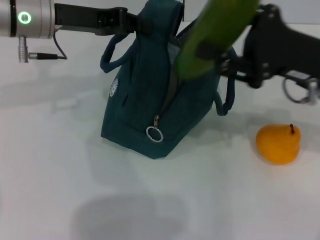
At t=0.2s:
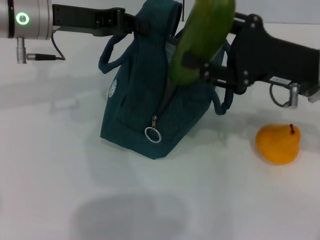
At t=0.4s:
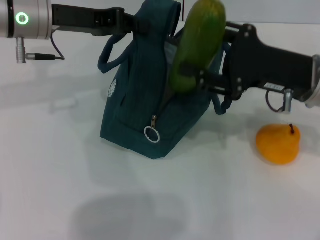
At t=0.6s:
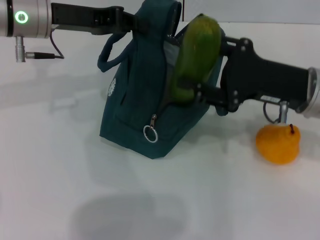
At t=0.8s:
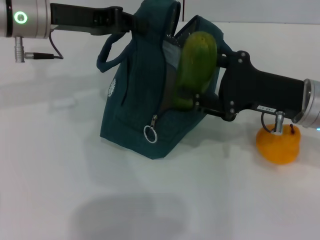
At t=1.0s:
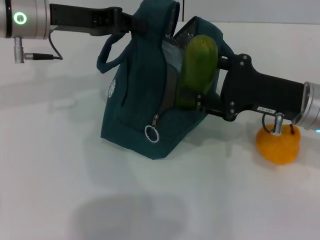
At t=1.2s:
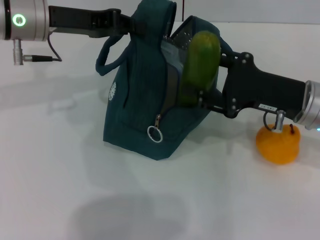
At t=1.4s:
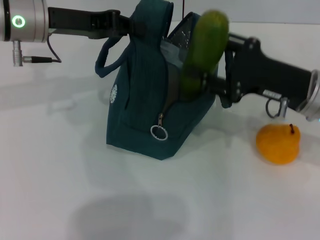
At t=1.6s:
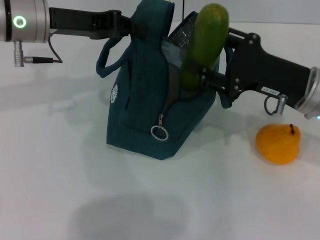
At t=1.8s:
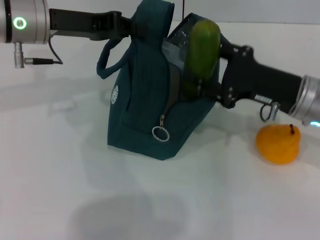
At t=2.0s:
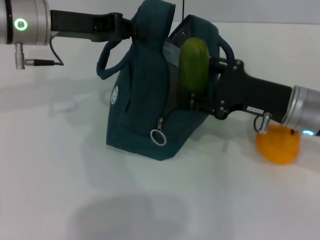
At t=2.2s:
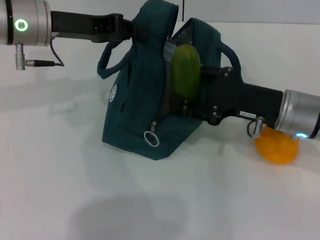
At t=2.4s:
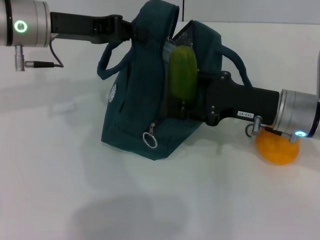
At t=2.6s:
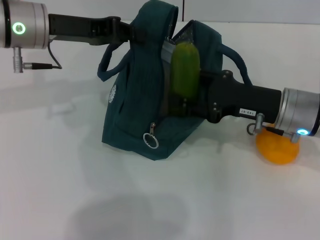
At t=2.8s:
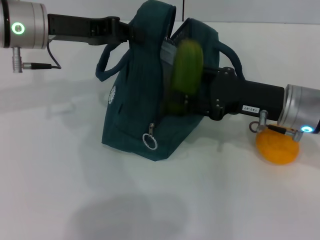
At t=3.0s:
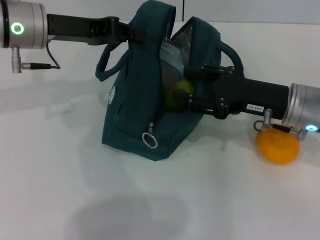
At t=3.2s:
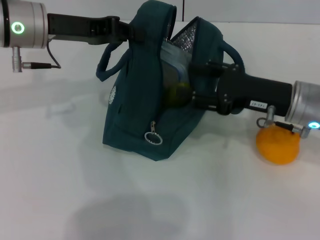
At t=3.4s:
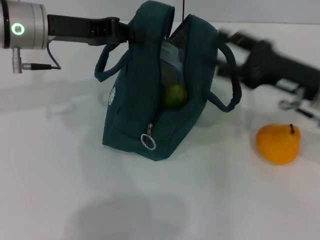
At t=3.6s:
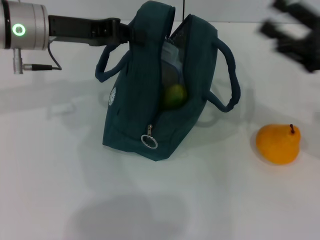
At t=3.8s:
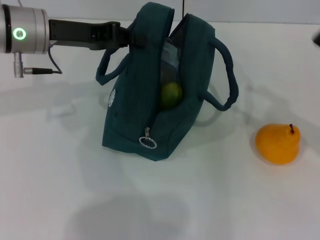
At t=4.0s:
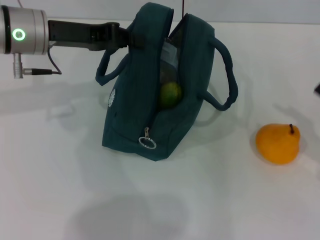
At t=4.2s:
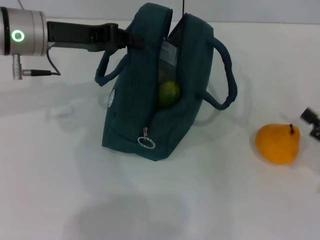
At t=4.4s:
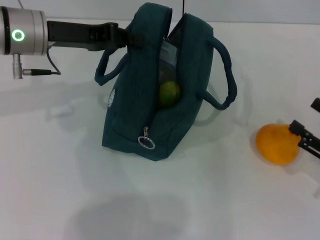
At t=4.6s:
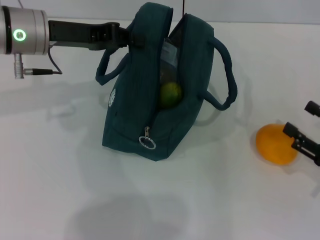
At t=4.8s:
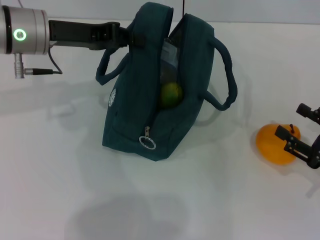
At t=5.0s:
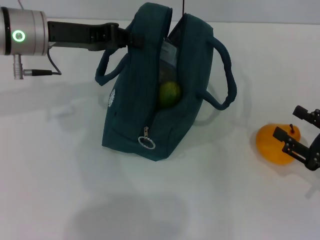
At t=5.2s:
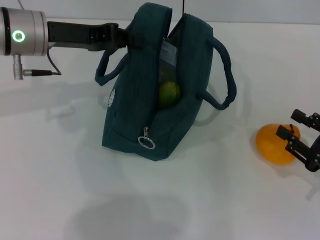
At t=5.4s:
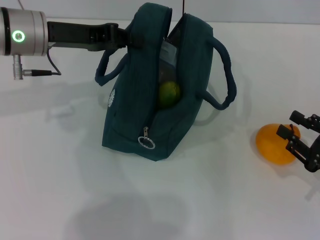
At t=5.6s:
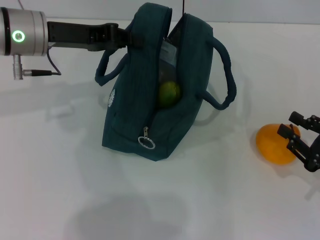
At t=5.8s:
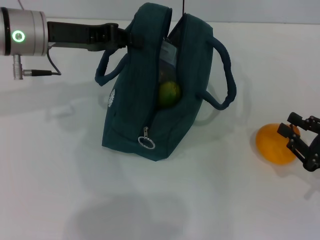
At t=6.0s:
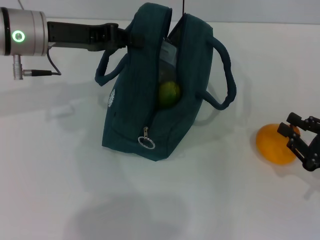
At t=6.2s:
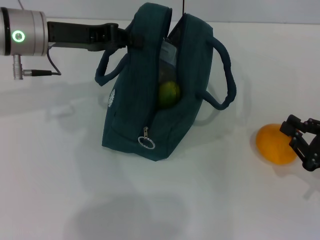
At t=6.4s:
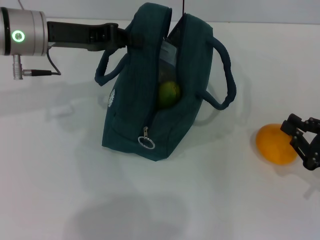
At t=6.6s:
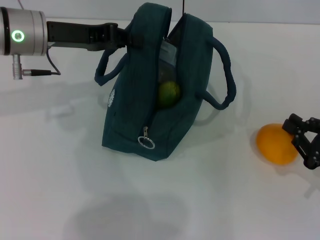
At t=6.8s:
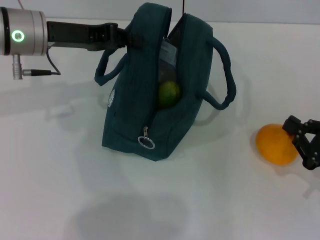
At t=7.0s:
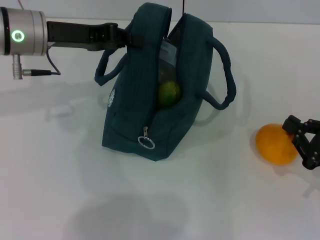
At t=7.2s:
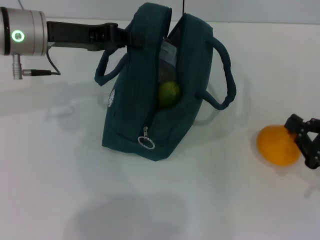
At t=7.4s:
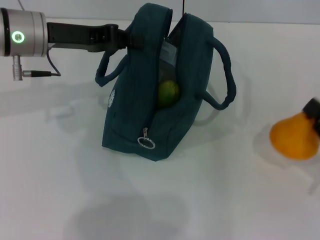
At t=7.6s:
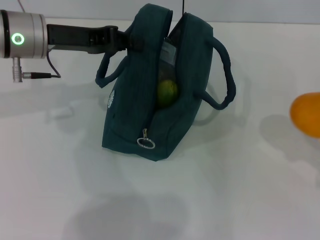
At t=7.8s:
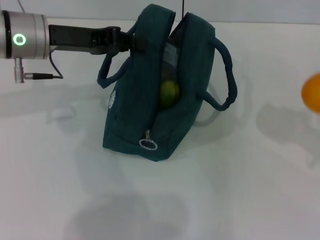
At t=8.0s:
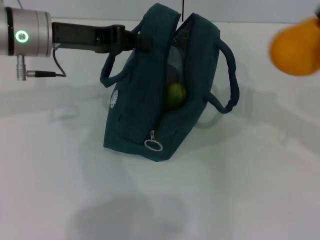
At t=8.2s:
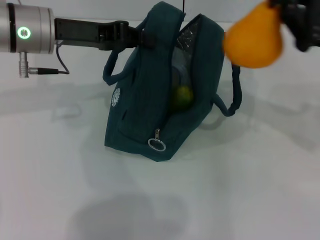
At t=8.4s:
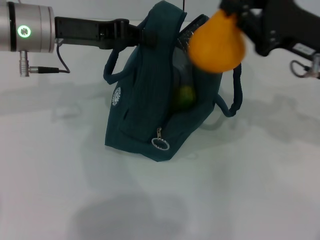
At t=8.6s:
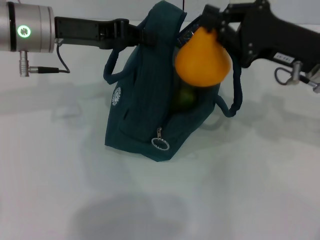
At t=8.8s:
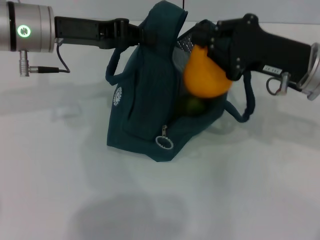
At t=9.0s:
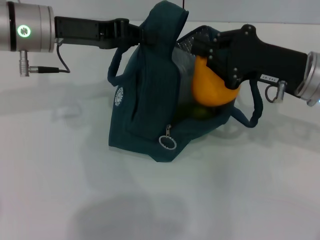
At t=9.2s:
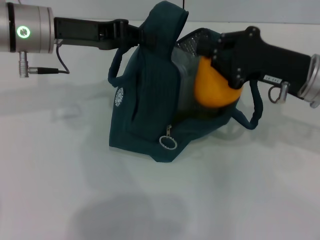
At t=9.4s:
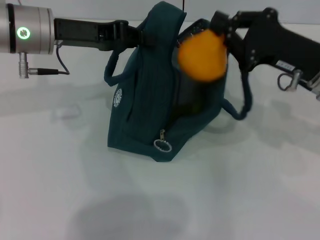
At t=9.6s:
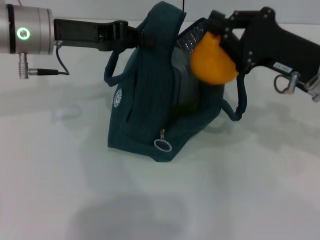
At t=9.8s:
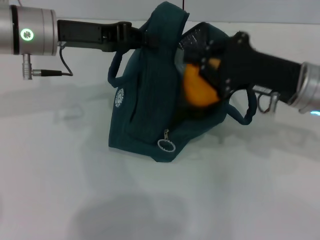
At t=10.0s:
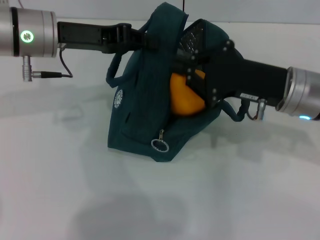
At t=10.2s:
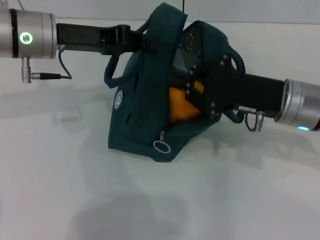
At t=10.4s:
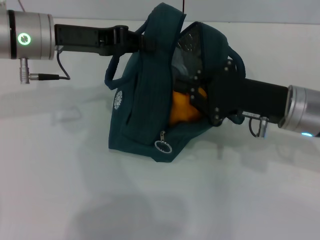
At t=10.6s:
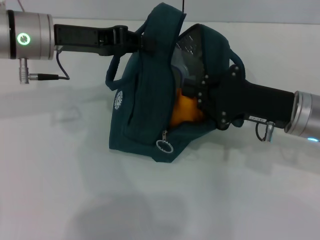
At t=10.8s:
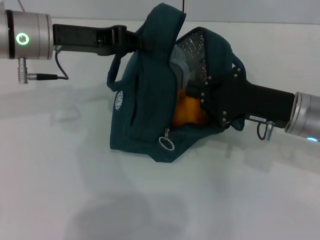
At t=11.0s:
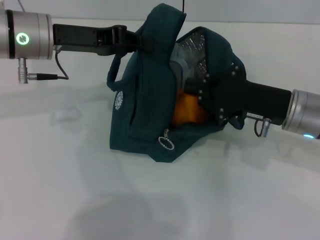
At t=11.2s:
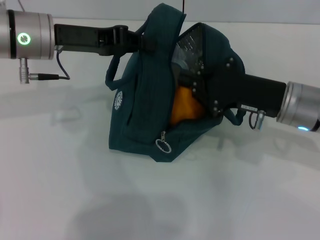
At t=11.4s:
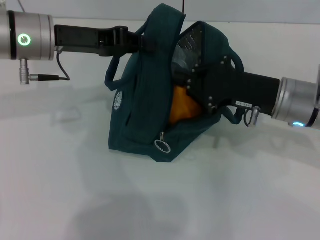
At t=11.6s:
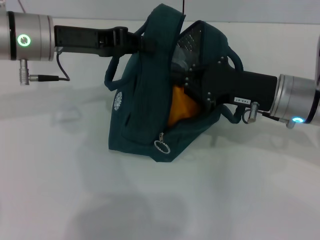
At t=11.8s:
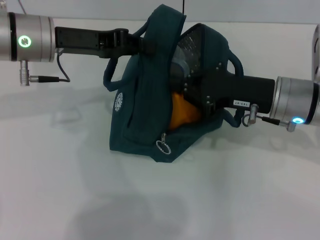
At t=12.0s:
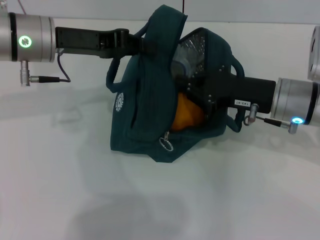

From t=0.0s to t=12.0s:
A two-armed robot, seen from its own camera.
Step, from t=0.0s to t=3.6s: Put the cucumber into the lunch bag with your right hand.
Step, from t=3.8s to t=7.0s: Grab the pear with your right hand.
From t=0.0s to t=1.6s: The grippers stay close to where they were, moving slightly.
From t=3.0s to t=4.4s: The right gripper goes about 20 cm to the right, backward and downward.
From t=4.4s to t=6.0s: The right gripper closes.
From t=6.0s to t=7.6s: The grippers move only a little.
From t=7.6s to t=9.0s: The right gripper heads to the left, forward and upward, covering approximately 20 cm.
From t=9.0s to t=10.4s: There are only small adjustments of the grippers.

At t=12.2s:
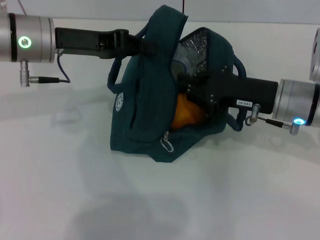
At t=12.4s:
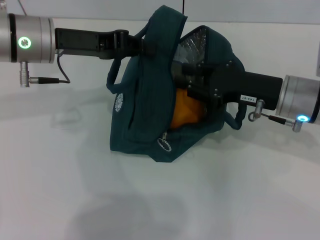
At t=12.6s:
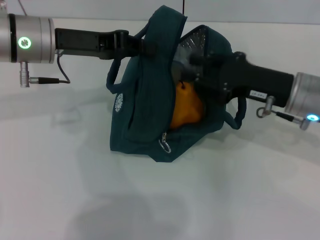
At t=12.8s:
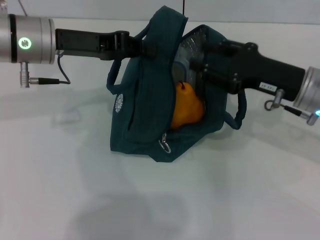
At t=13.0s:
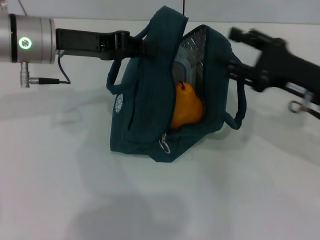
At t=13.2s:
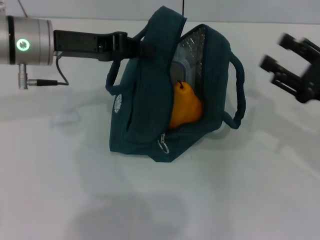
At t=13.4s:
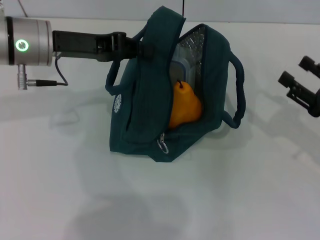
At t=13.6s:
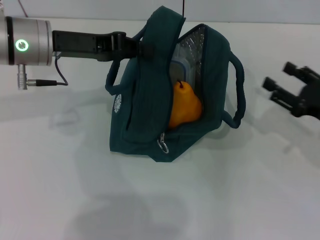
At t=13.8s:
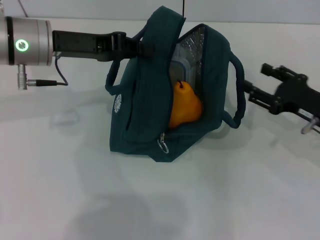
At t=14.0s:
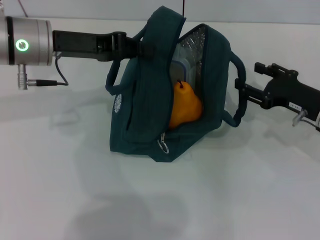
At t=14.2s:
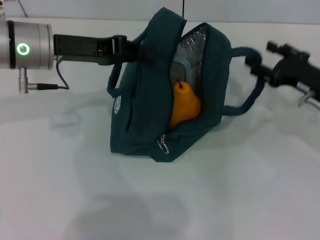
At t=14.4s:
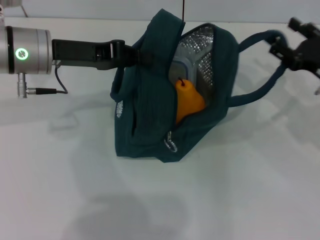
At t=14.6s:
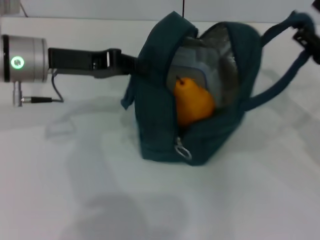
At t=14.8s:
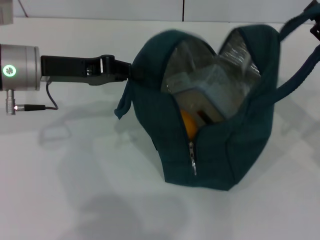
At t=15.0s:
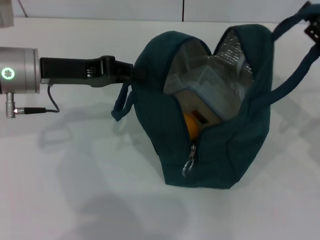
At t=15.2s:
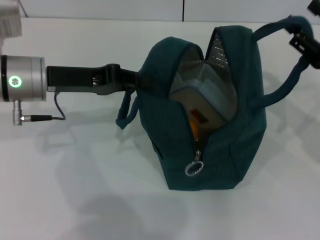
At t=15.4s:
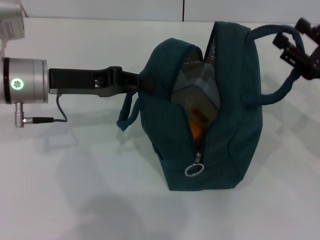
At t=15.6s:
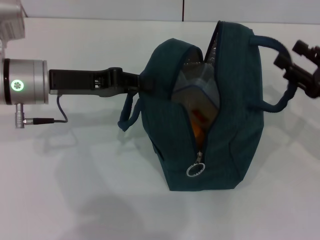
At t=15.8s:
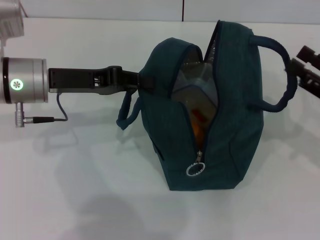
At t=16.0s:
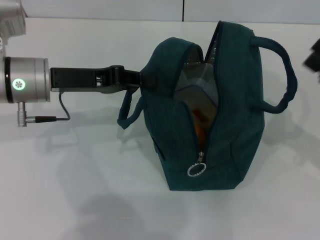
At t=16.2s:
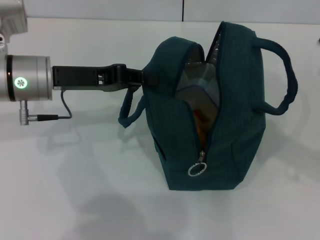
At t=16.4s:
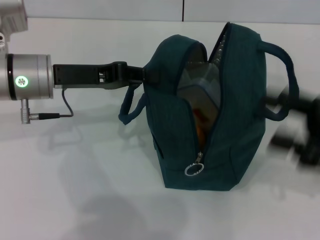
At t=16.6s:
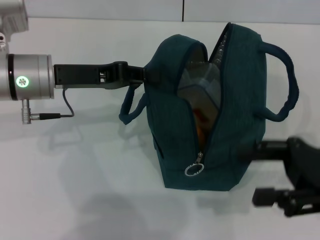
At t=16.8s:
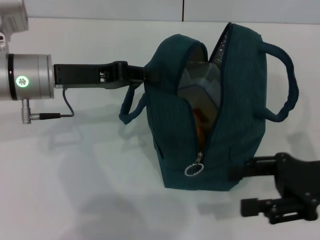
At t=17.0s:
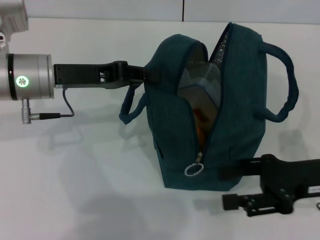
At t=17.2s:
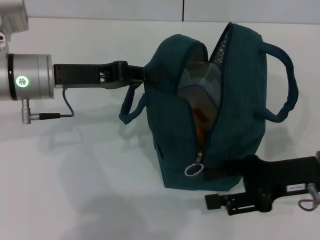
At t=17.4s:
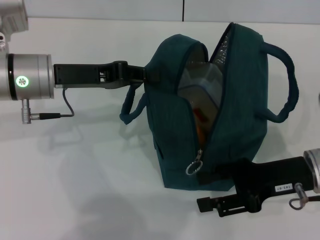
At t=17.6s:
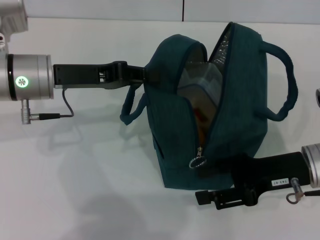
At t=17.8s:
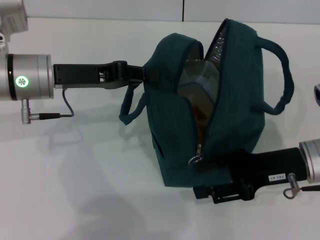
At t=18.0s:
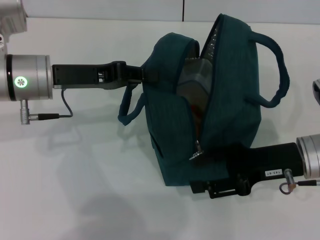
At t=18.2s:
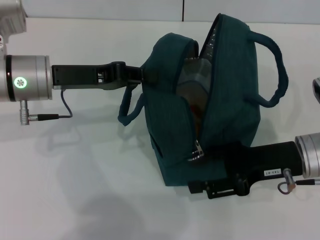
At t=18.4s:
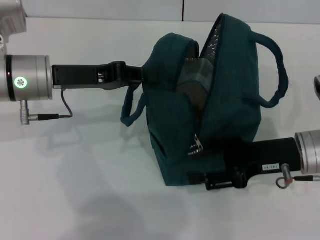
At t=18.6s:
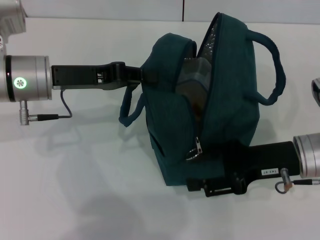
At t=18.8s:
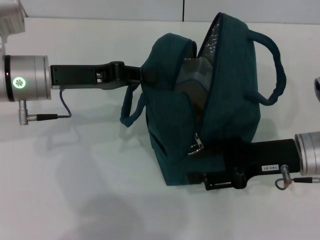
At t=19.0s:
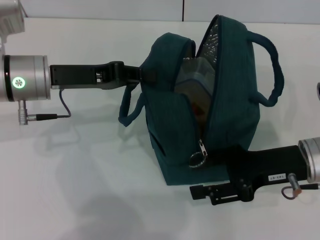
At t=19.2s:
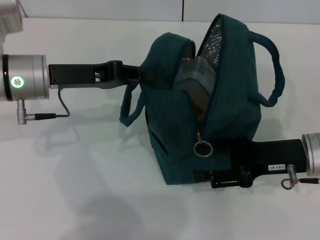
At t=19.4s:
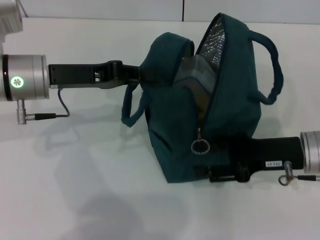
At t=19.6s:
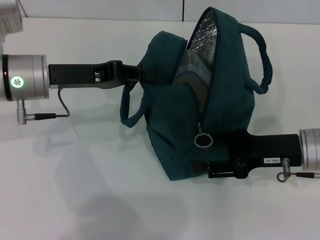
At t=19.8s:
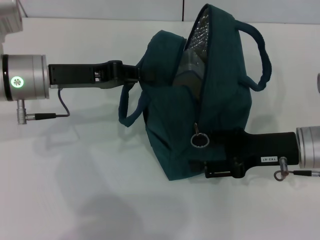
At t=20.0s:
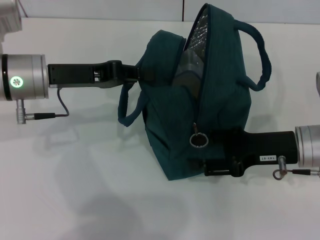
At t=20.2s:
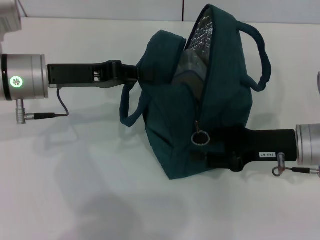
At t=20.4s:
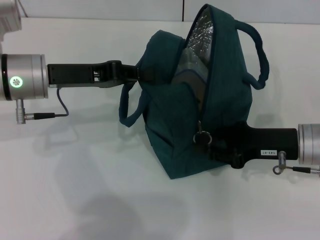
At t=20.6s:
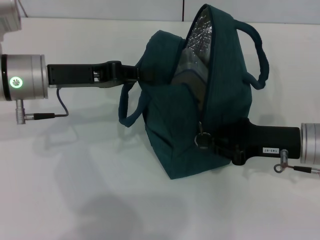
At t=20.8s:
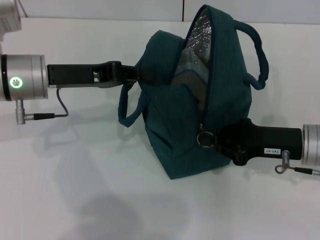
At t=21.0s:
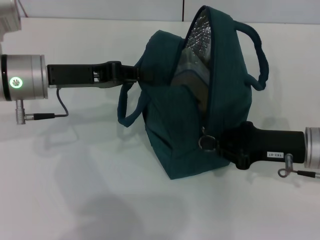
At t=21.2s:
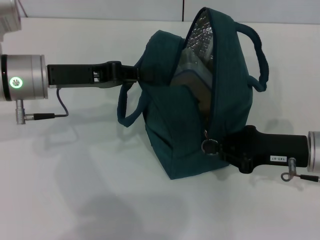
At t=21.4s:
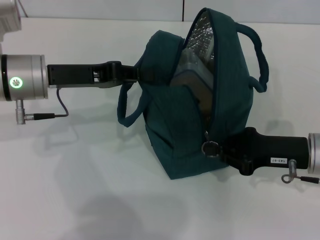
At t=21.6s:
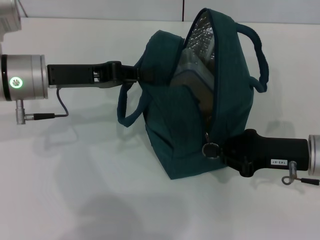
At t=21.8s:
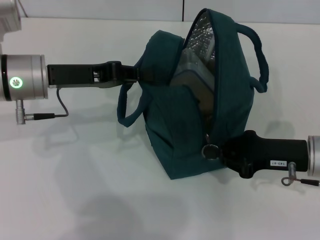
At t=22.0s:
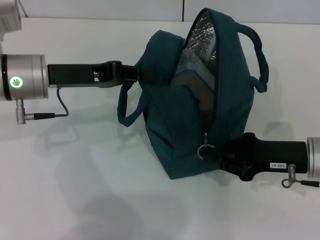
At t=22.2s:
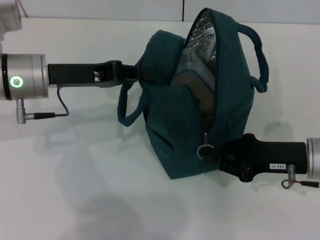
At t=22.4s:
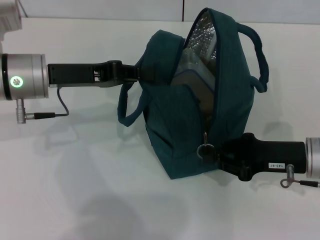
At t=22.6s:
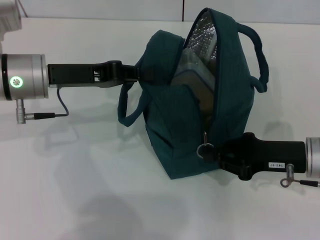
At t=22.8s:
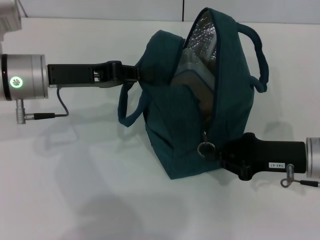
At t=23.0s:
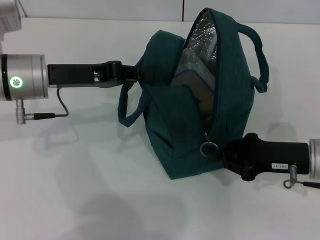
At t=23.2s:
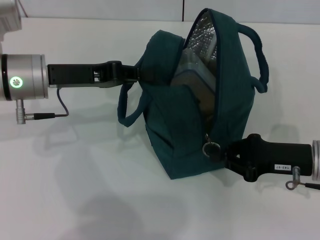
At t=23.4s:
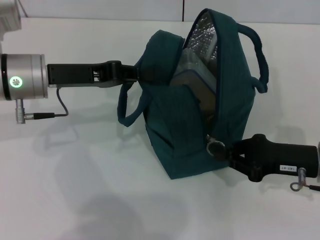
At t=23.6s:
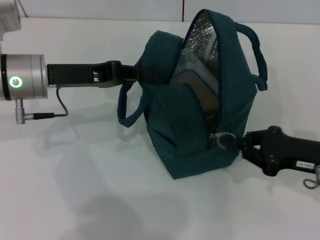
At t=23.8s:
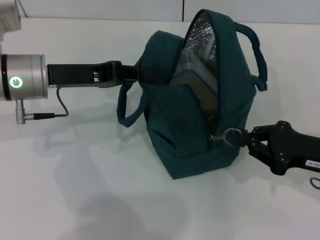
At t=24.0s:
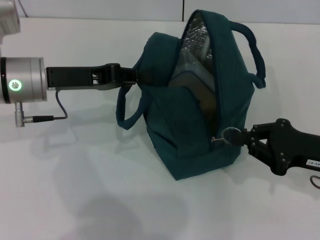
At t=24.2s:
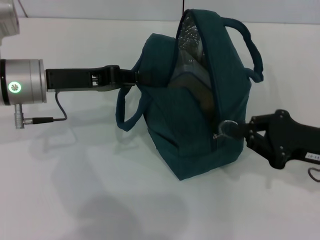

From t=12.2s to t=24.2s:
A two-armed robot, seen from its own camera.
Step, from t=12.8s to t=15.4s: Hold the lunch bag with your right hand.
From t=12.2s to t=13.8s: The right gripper moves to the right, roughly 10 cm, and opens its fingers.
From t=13.8s to t=15.2s: The right gripper moves upward, about 5 cm.
From t=15.2s to t=16.6s: The right gripper heads backward, covering some 5 cm.
From t=16.6s to t=18.2s: The right gripper heads to the left, covering approximately 5 cm.
From t=18.2s to t=19.8s: The grippers stay close to where they were, moving slightly.
From t=19.8s to t=21.2s: The right gripper closes.
From t=21.2s to t=22.6s: Both grippers stay about where they are.
From t=22.6s to t=24.2s: The grippers stay close to where they were, moving slightly.
